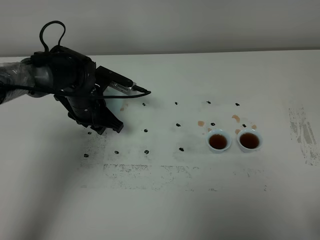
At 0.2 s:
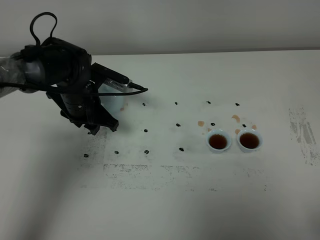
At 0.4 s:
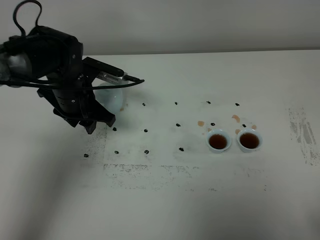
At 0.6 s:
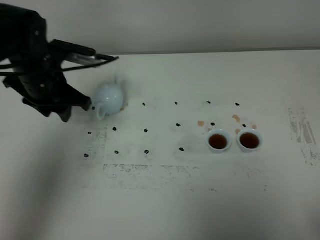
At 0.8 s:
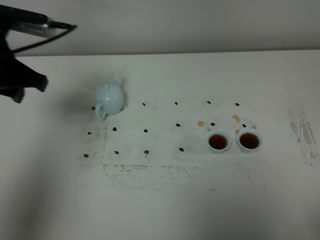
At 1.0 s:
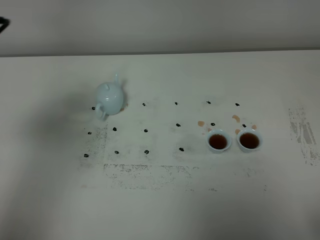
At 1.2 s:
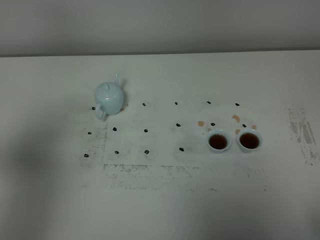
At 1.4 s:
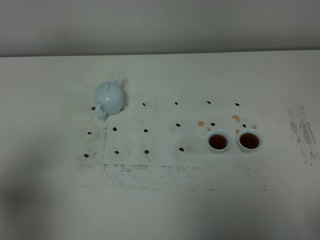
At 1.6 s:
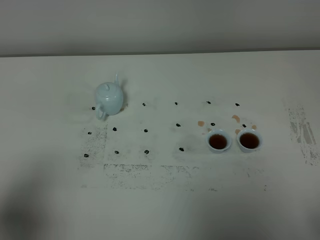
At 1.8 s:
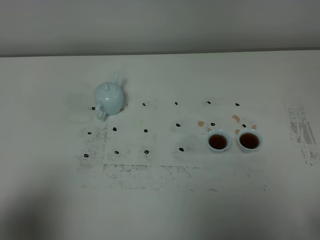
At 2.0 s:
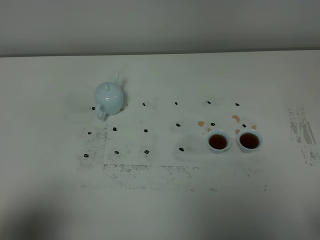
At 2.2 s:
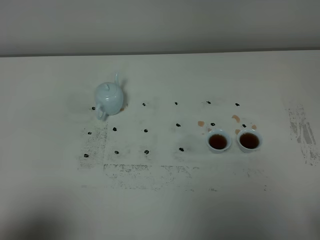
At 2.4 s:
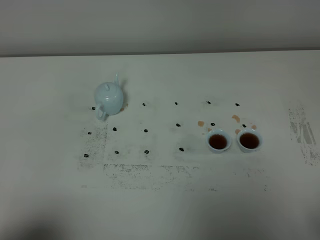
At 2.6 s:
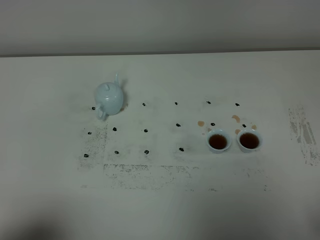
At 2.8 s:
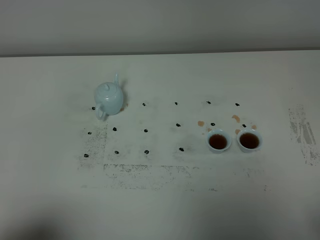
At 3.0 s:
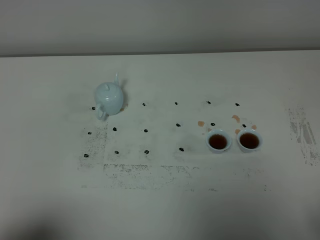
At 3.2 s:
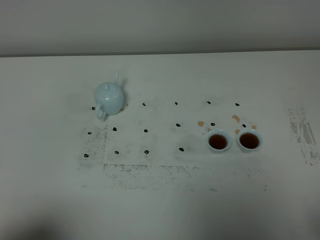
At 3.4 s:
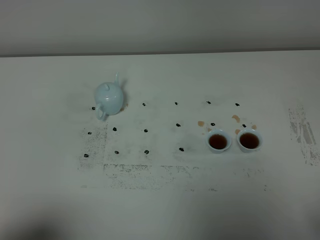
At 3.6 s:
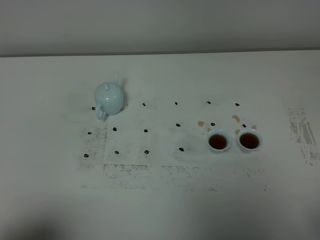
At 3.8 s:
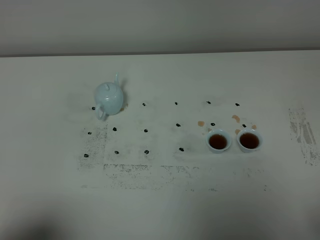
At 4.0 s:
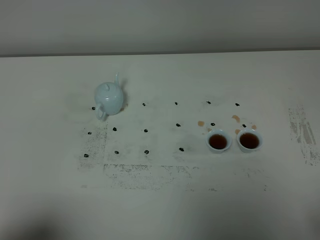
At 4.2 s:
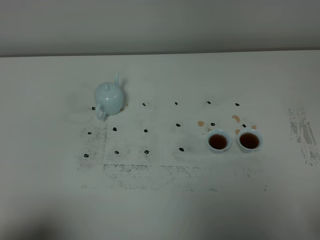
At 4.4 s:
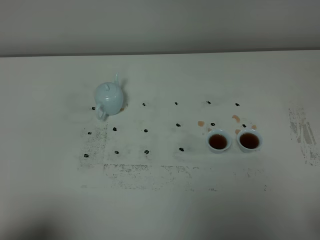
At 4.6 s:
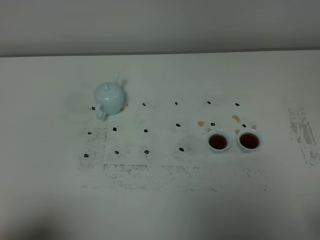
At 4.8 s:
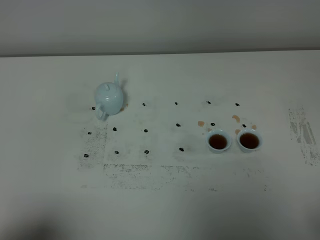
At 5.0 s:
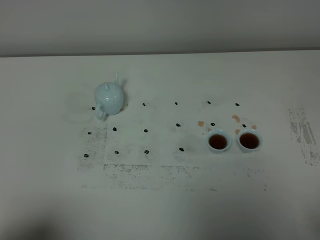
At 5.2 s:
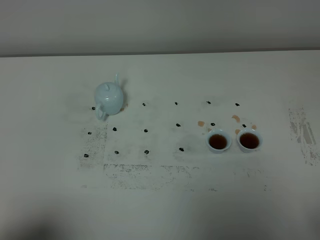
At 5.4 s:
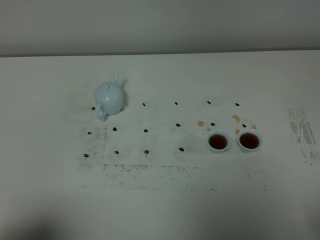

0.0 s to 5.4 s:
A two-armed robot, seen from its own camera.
Task of the whole recording: grasp the blue porcelain teapot and pour the tea into the two blue porcelain teacups one by one, put the blue porcelain teapot back in its original place.
0.0 to 1.4 s: The left gripper travels backward, upward and to the left by some 40 cm.
1.4 to 2.8 s: The left gripper goes some 10 cm backward and downward.
2.8 to 5.4 s: Neither gripper changes place.
